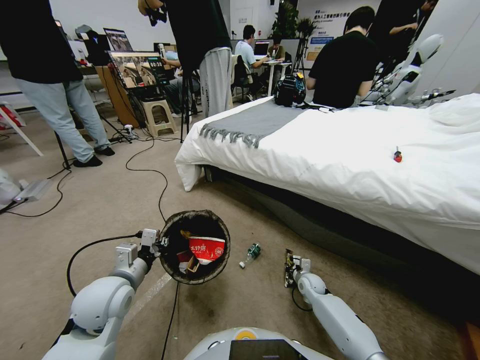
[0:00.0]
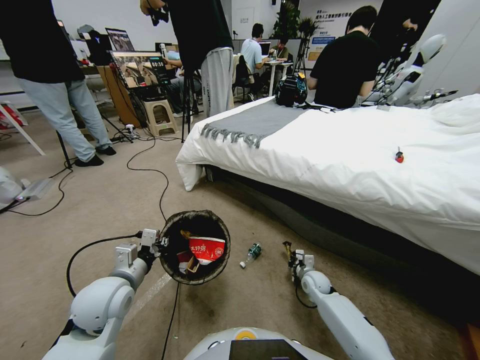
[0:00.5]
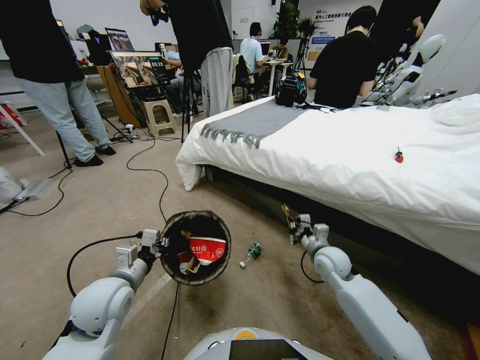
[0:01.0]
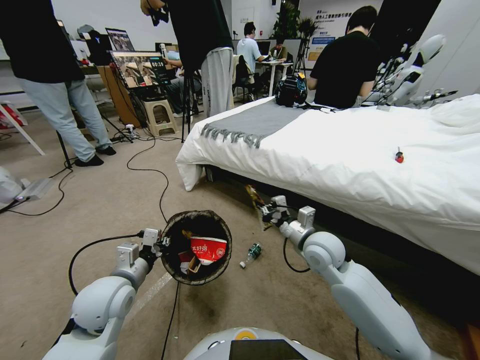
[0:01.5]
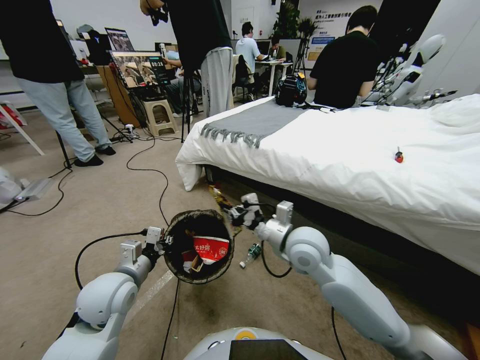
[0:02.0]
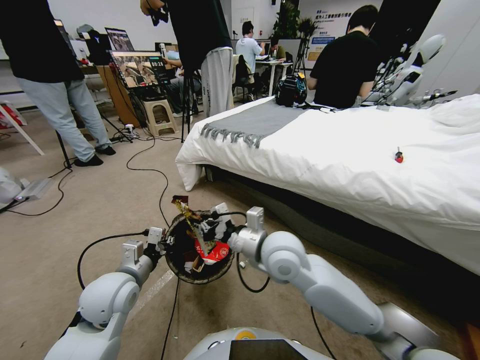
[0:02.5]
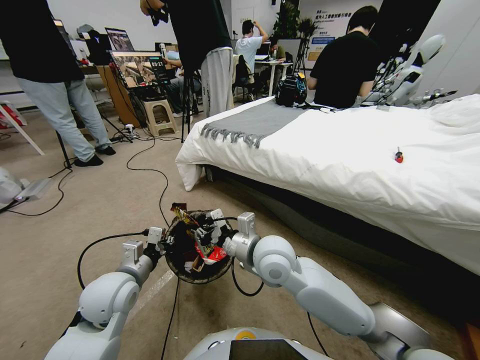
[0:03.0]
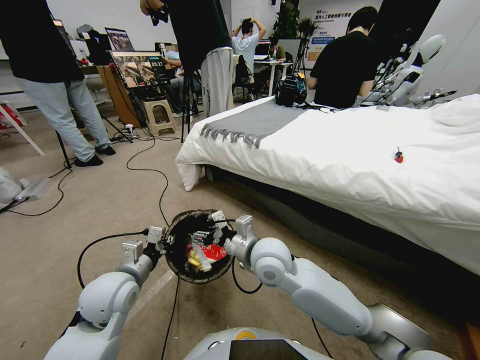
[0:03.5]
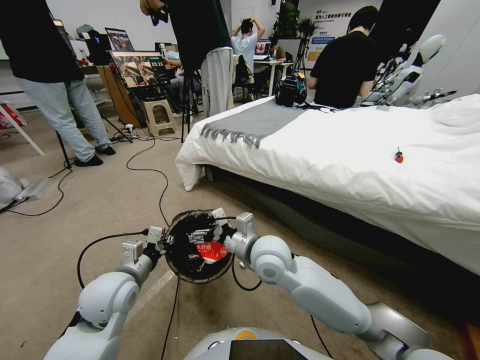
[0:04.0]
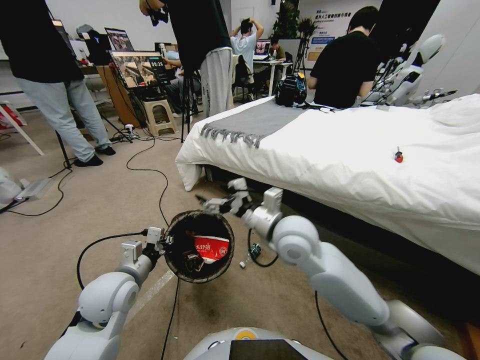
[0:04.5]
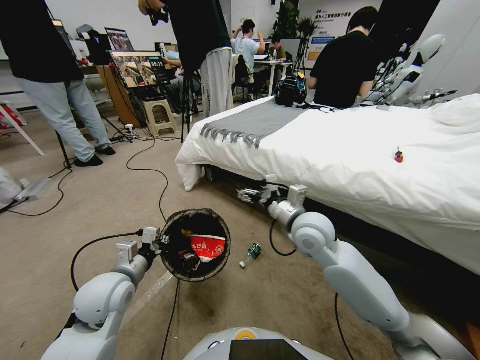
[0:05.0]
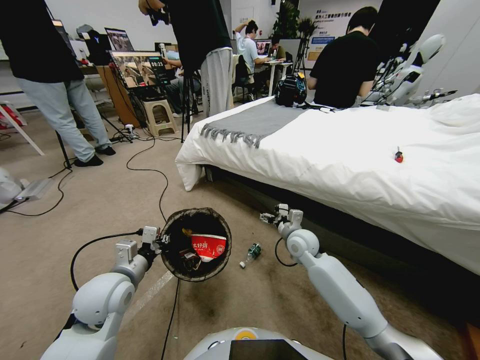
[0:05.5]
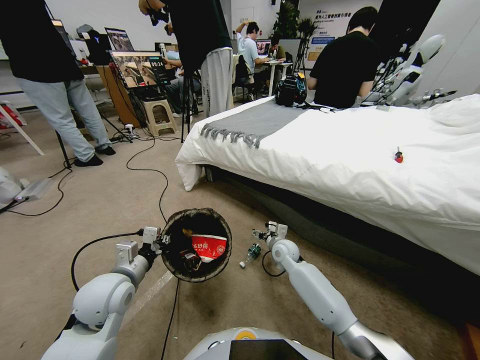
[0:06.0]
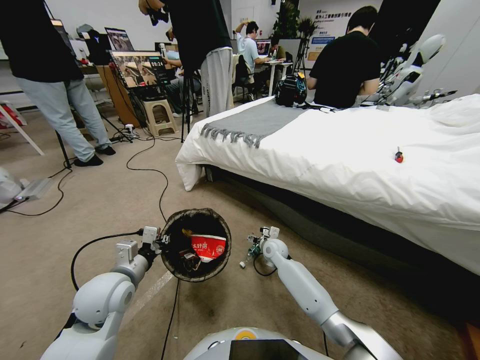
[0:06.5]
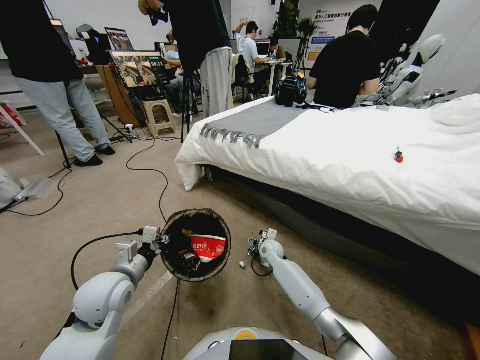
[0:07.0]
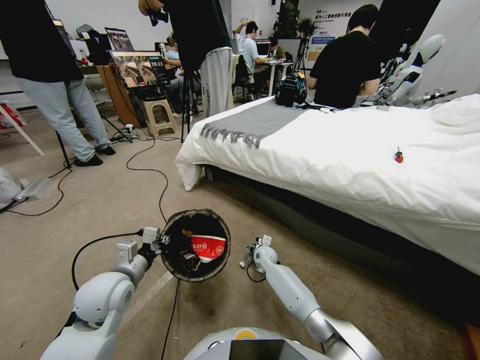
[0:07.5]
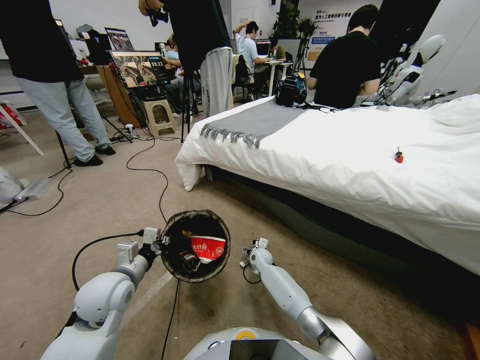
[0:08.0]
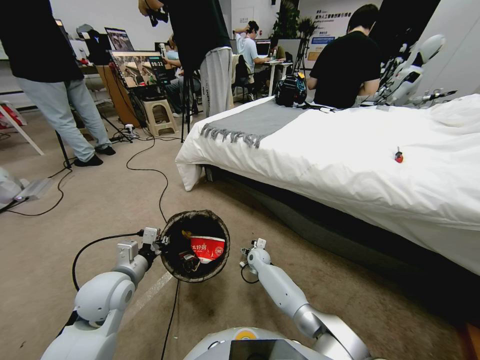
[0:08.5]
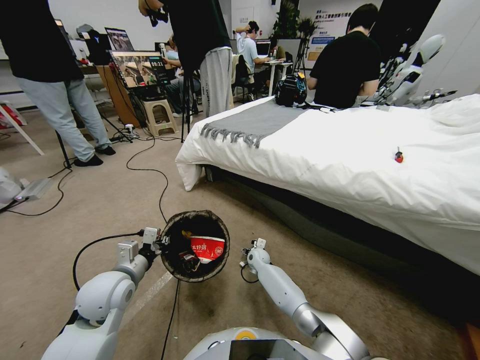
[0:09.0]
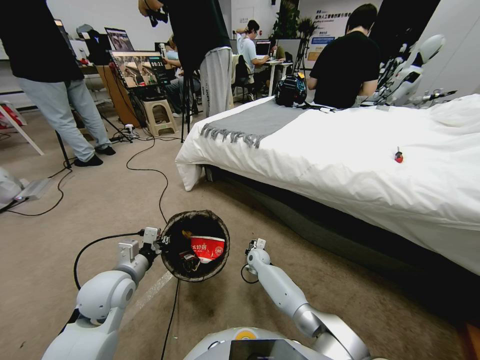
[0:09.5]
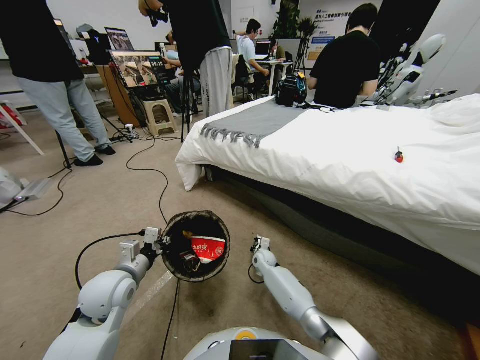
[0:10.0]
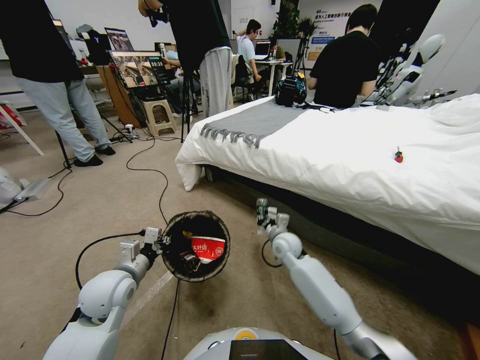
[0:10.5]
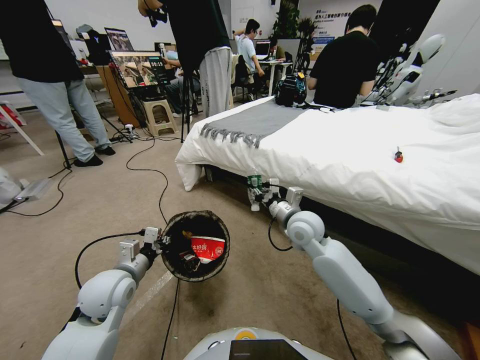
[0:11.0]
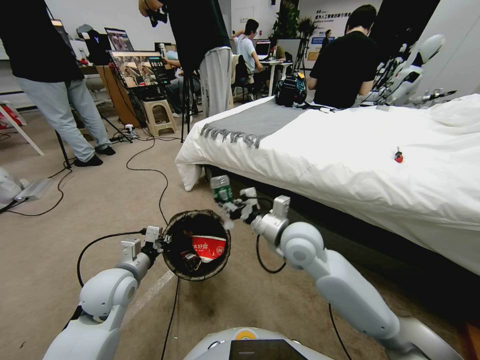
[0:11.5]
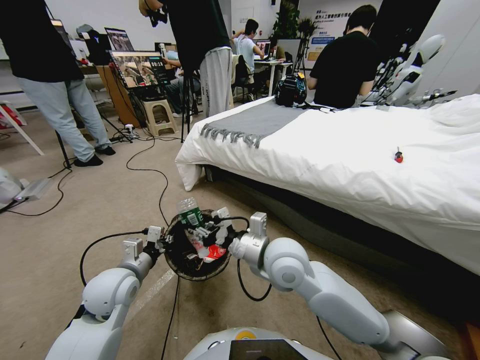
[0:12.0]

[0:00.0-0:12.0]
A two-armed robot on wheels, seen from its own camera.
Task of the whole recording: Pick up the trash bin, then pick up the garbage from the floor and place it into the trash bin.
0:00.0 to 0:02.0: The right gripper travels upward and to the left by approximately 40 cm.
0:02.0 to 0:04.0: The right gripper goes roughly 5 cm to the left, and opens up.
0:04.0 to 0:06.0: The right gripper is displaced downward, forward and to the right by some 25 cm.
0:06.0 to 0:08.0: The right gripper is displaced downward and to the left by approximately 10 cm.
0:08.0 to 0:10.0: The right gripper shifts by roughly 5 cm, and closes up.
0:10.0 to 0:12.0: The right gripper goes about 35 cm upward and backward.

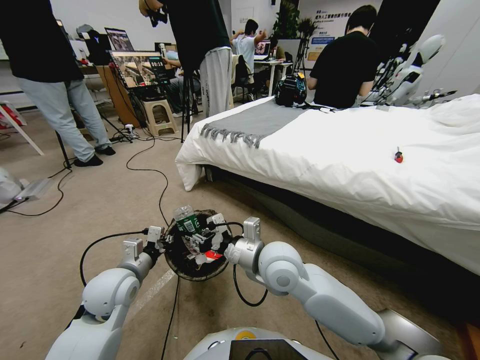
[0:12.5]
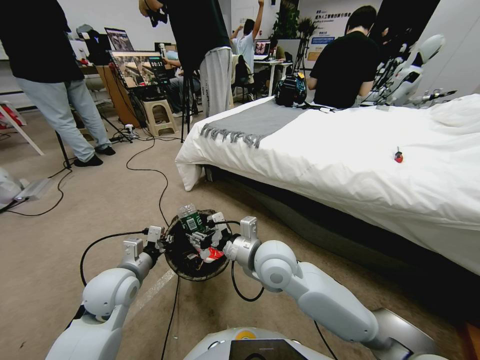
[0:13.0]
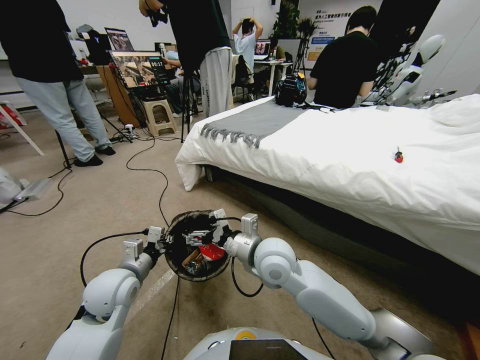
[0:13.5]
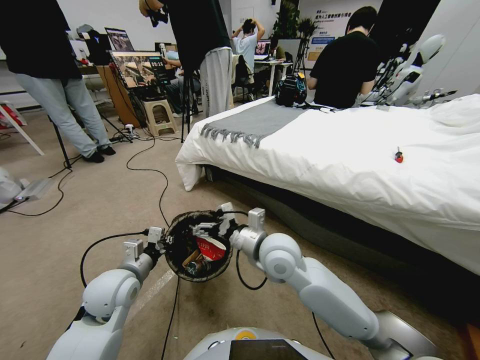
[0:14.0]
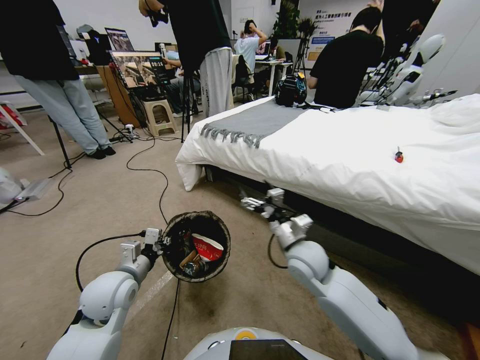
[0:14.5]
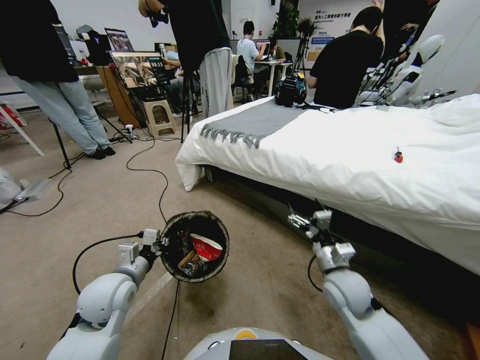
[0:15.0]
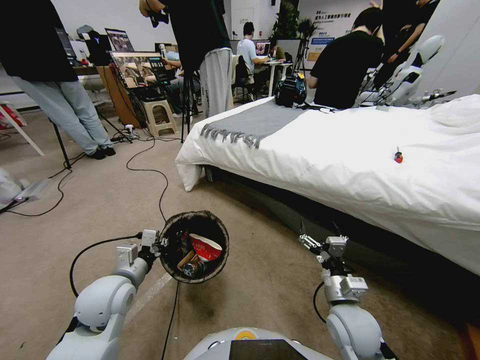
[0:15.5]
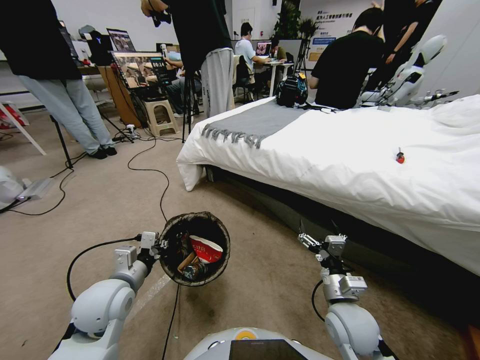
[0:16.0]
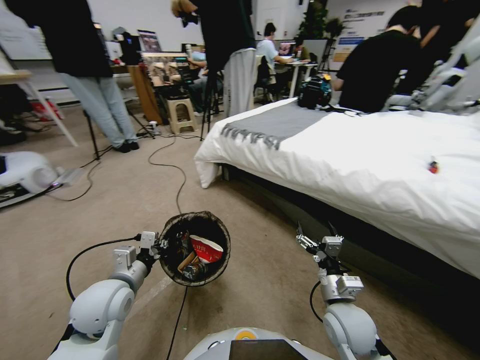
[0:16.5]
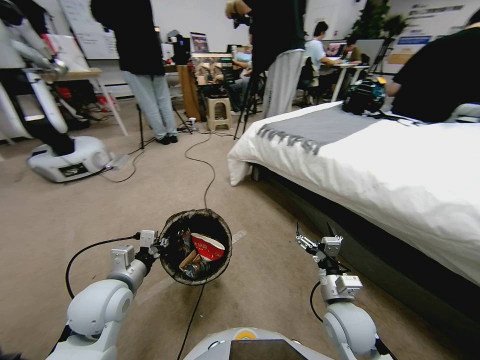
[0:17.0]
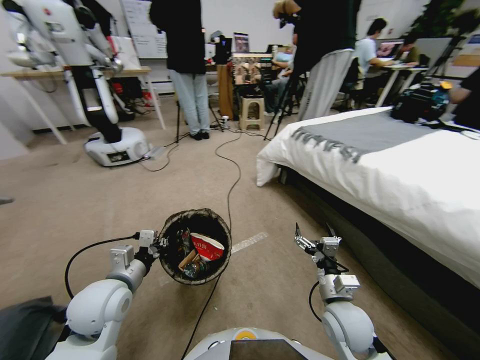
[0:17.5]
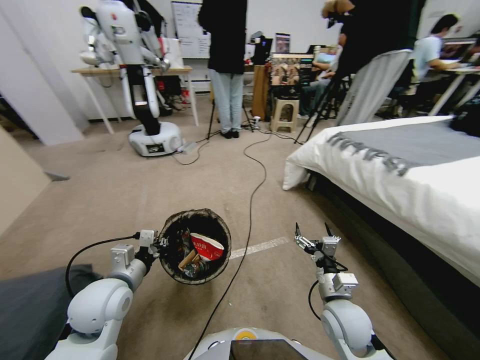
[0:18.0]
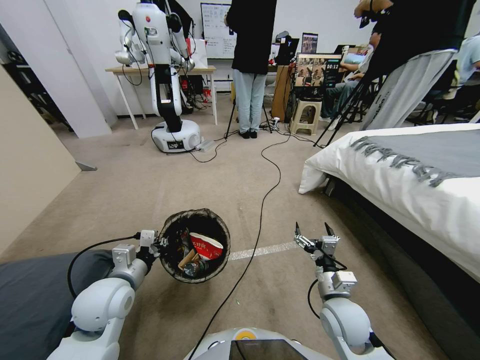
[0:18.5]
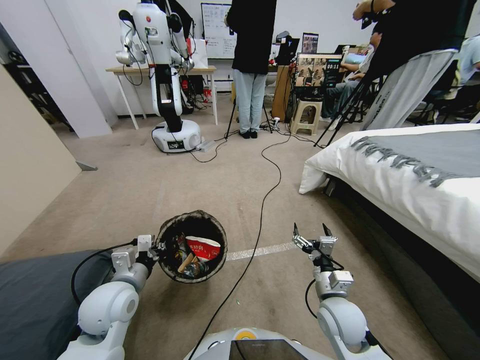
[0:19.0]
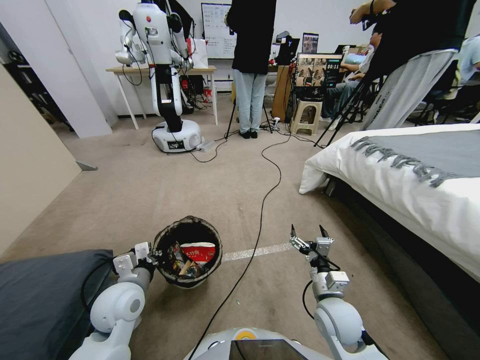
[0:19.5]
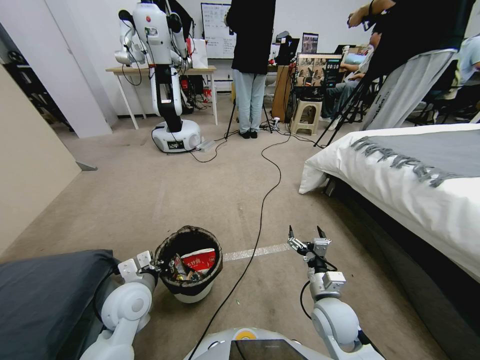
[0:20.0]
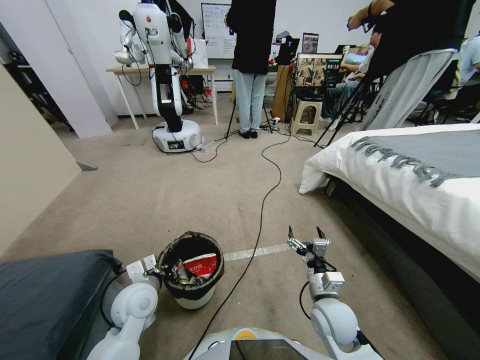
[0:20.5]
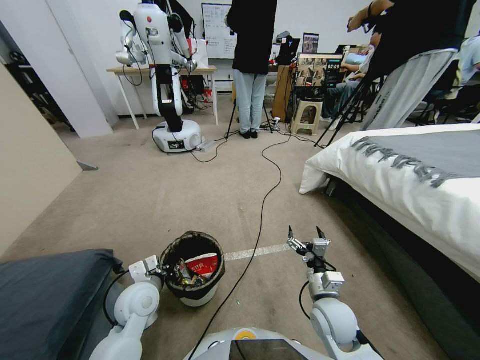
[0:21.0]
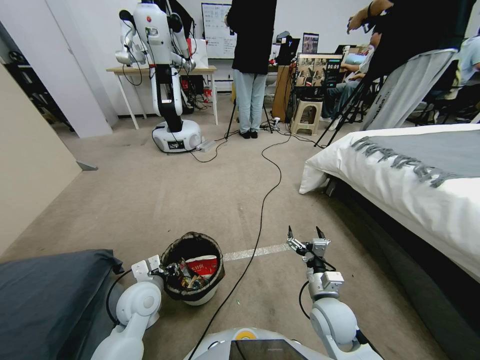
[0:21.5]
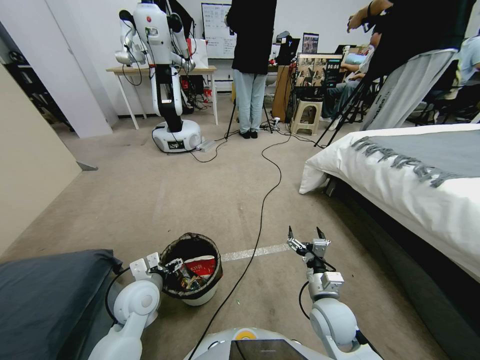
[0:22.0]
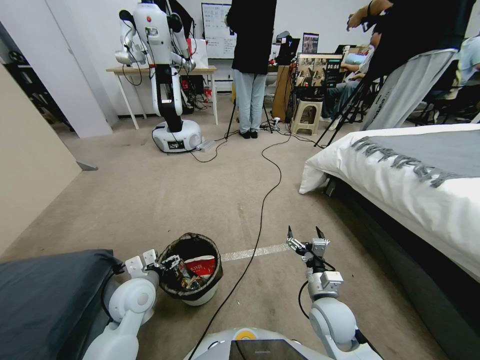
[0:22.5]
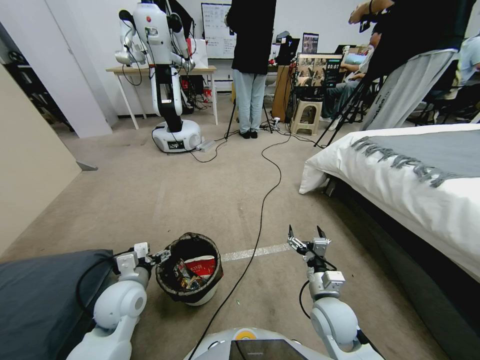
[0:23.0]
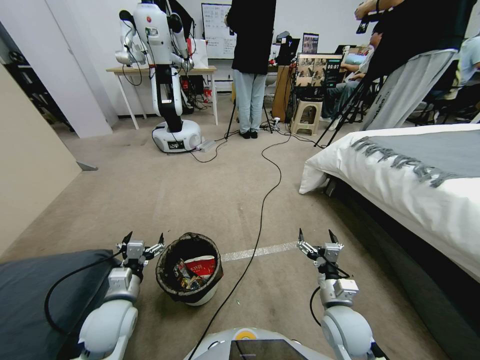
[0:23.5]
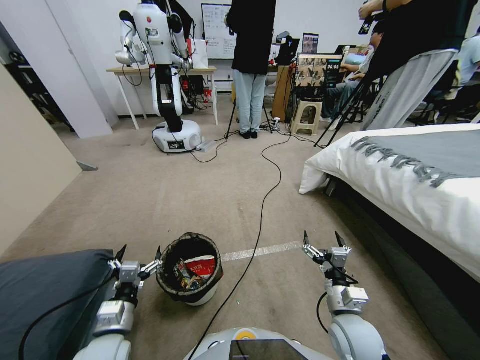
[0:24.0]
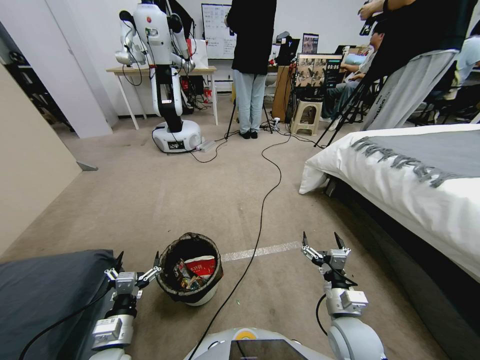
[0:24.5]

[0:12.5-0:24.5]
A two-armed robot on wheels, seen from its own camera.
Task of the whole recording: Pick up the trash bin, then pick up the garbage from the floor and place it into the trash bin.
0:12.5 to 0:14.5: The right gripper shifts about 15 cm to the right and downward, and opens up.
0:14.5 to 0:16.5: The right gripper heads backward and downward, covering some 15 cm.
0:18.5 to 0:20.5: The left gripper heads downward, covering approximately 5 cm.
0:20.5 to 0:22.5: The left gripper opens up.
0:22.5 to 0:24.5: The right gripper shifts by about 5 cm, while the left gripper goes about 15 cm backward.

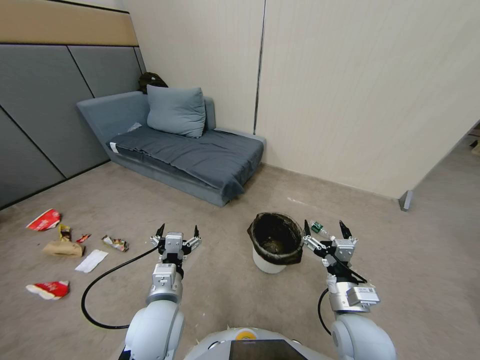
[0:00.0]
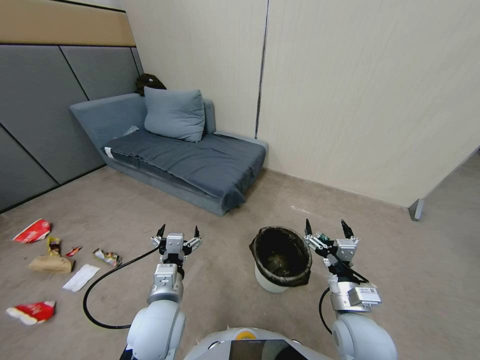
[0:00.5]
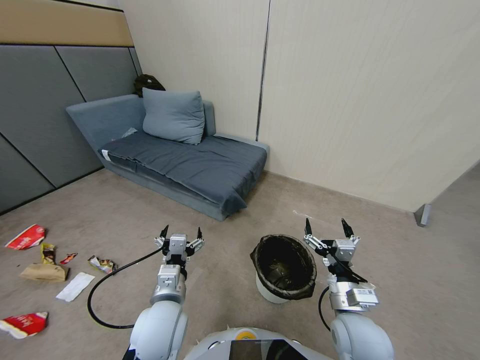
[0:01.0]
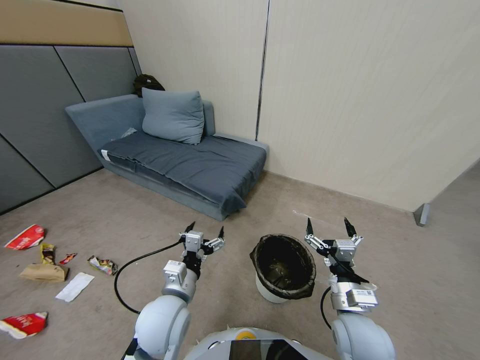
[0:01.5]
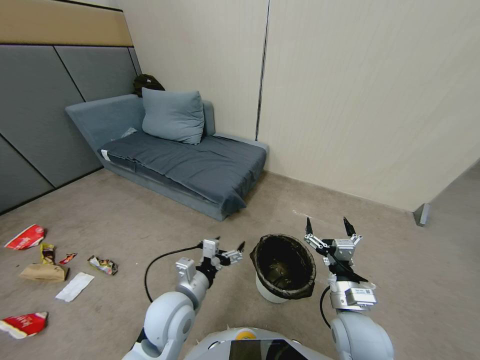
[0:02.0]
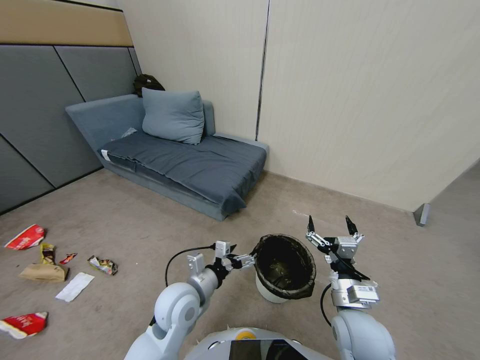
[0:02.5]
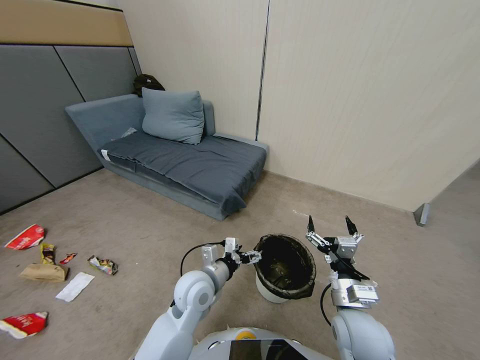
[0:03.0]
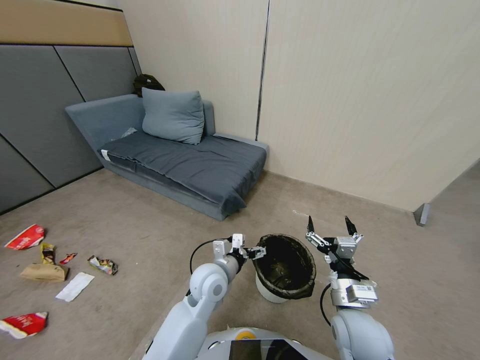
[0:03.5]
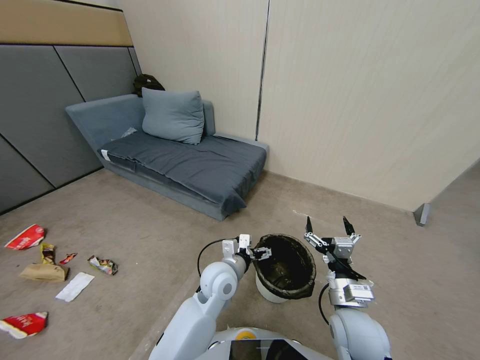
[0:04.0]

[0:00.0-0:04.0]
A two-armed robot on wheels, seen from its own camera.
Task of the whole recording: Pick up the trash bin, then pick up the garbage from the floor and place it into the trash bin.
0:02.0 to 0:04.0: The left gripper is displaced to the right and forward by some 10 cm.
